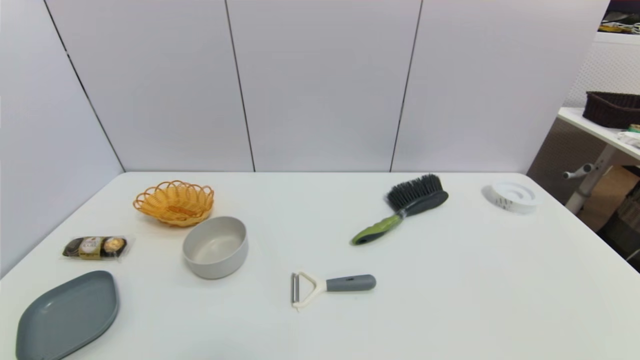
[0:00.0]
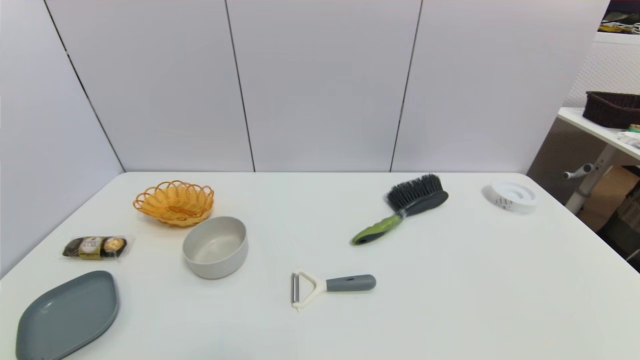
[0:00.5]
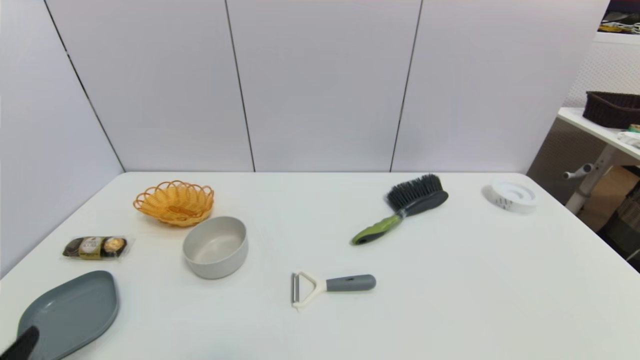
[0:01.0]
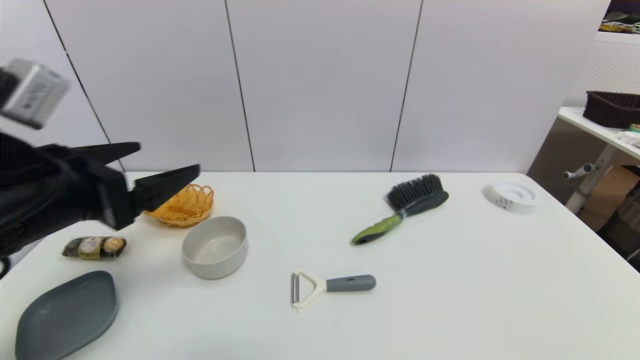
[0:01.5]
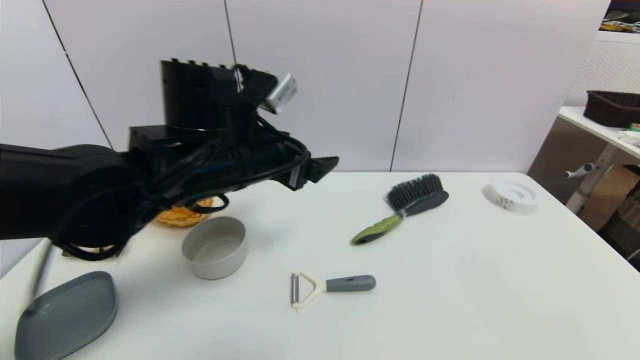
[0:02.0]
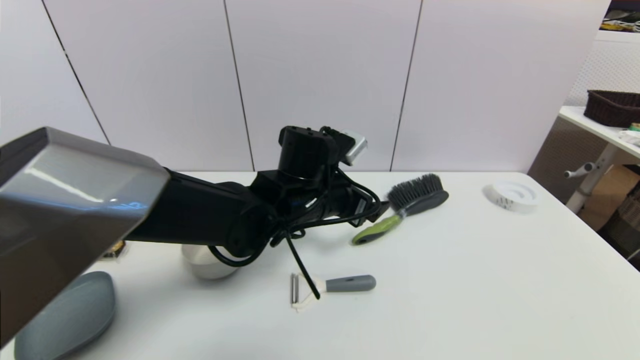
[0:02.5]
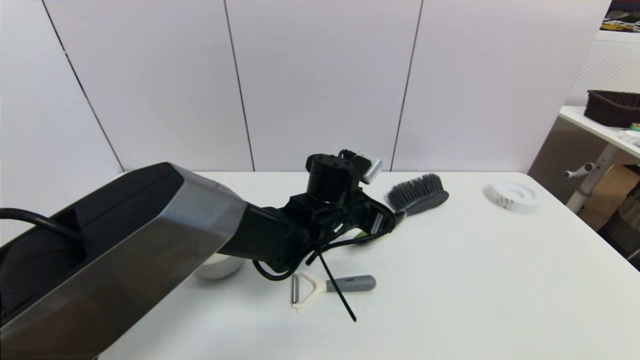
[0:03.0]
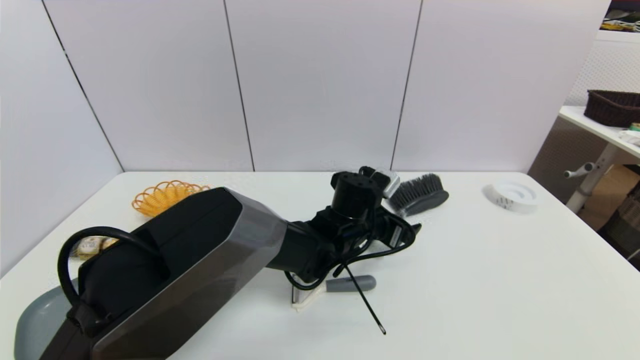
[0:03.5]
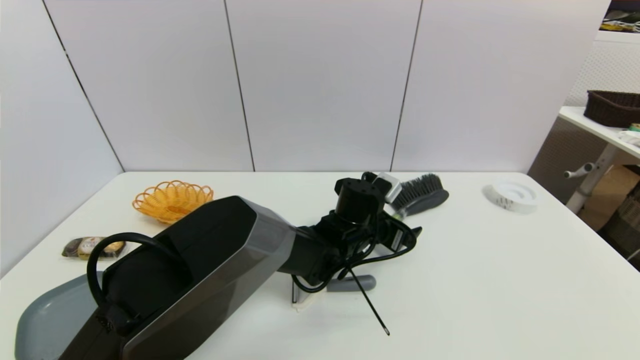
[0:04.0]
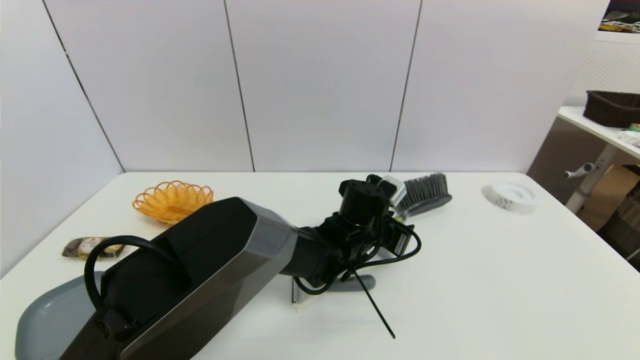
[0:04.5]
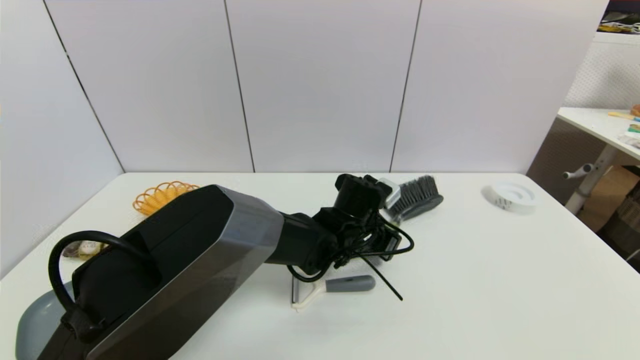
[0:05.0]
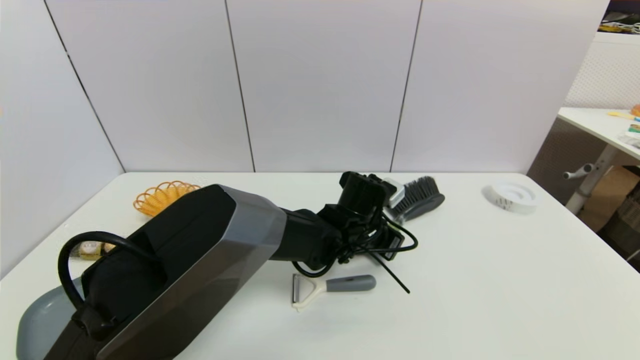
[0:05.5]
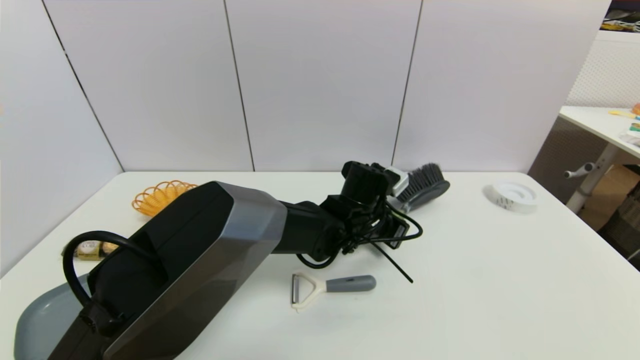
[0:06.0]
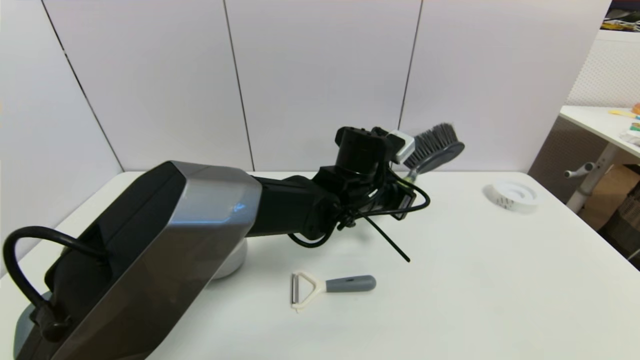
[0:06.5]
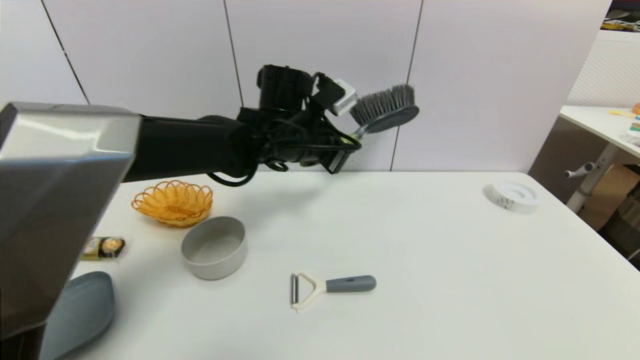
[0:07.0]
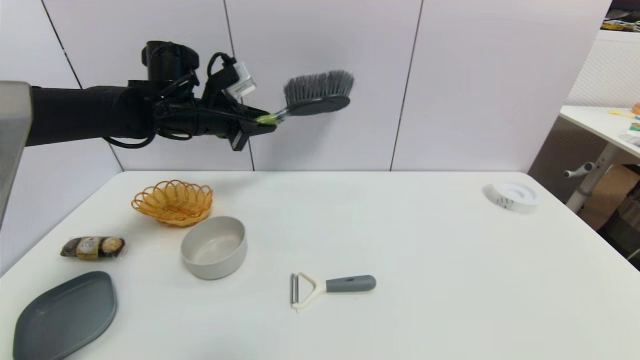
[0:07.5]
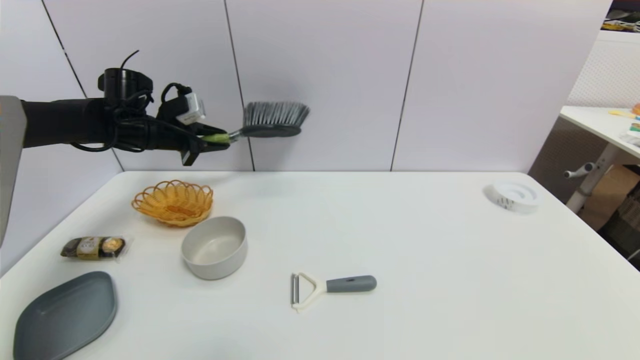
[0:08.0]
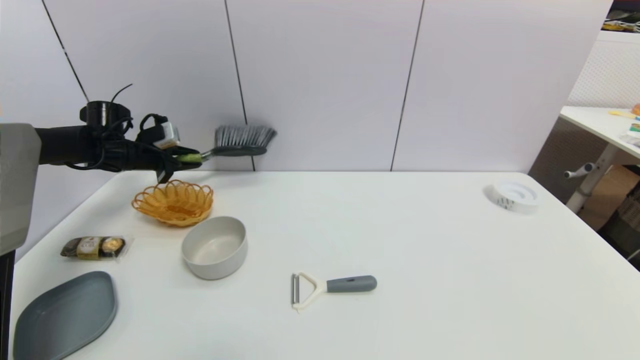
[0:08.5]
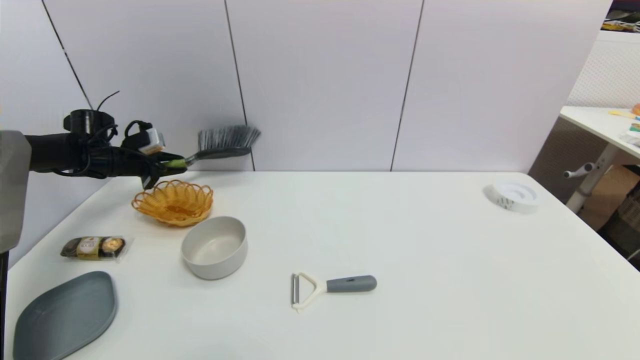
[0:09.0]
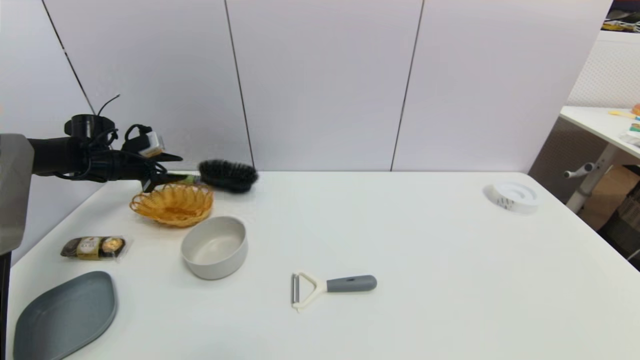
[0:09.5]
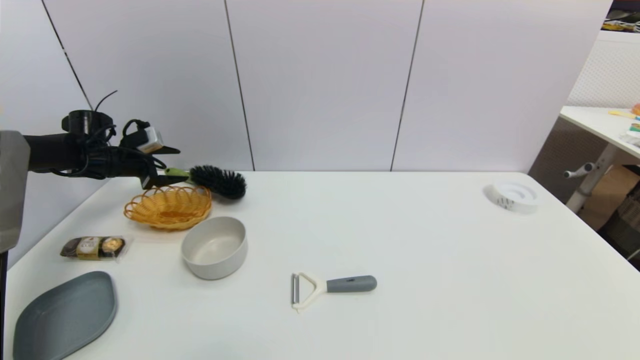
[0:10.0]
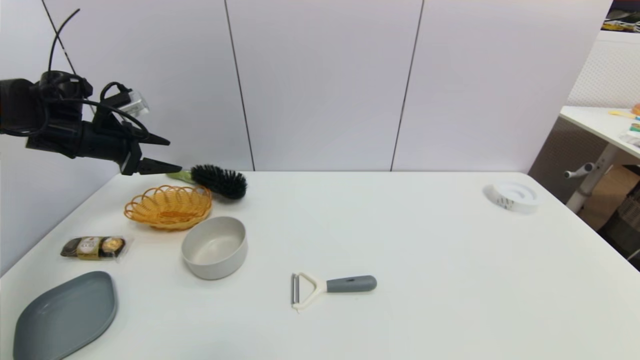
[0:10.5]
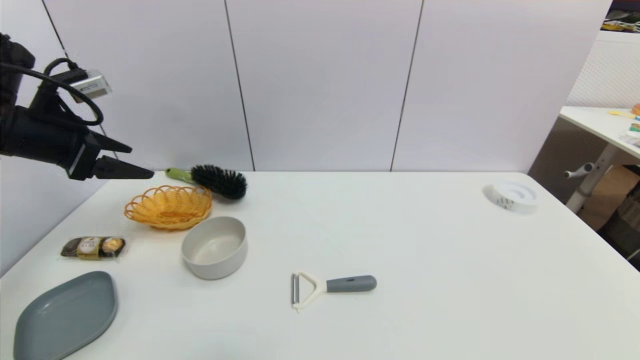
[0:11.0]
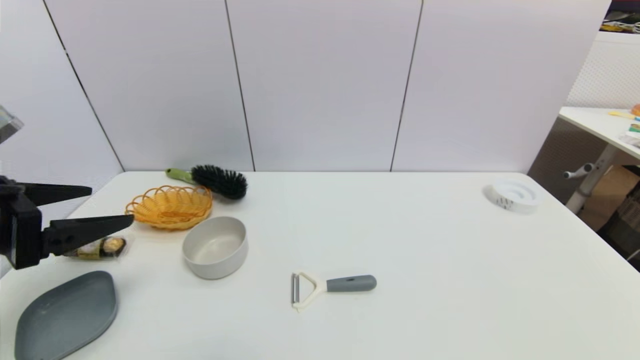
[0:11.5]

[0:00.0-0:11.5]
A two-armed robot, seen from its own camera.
Task of the whole recording: put the brush in the designated position.
Step, 0:01.0 to 0:05.5: Grasp the brush with left gripper.
Step, 0:06.0 to 0:09.5: Place the brush on the table with left gripper.
0:00.0 to 0:02.0: The left gripper is displaced forward, to the right and upward by approximately 40 cm.
0:02.0 to 0:04.0: The left gripper heads downward, to the right and forward, covering some 25 cm.
0:04.0 to 0:06.0: The left gripper closes up.
0:06.0 to 0:07.5: The left gripper travels to the left and upward by approximately 30 cm.
0:07.5 to 0:09.5: The left gripper shifts about 25 cm to the left and downward.
0:09.5 to 0:11.5: The left gripper is displaced backward by roughly 30 cm, and opens its fingers.

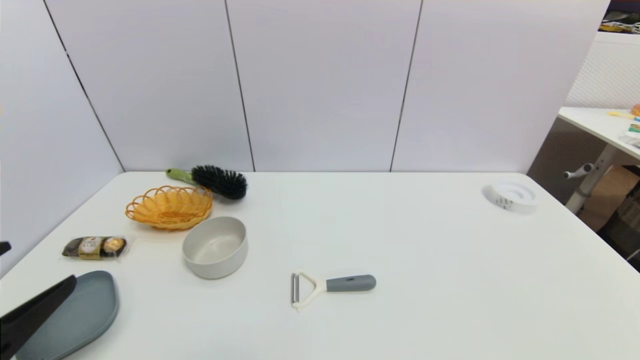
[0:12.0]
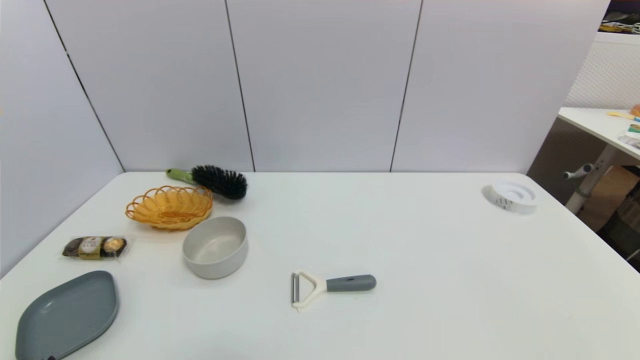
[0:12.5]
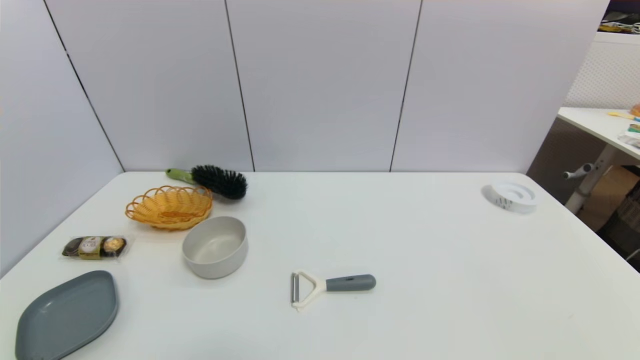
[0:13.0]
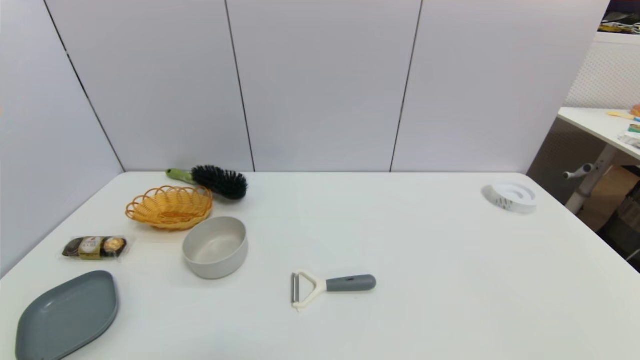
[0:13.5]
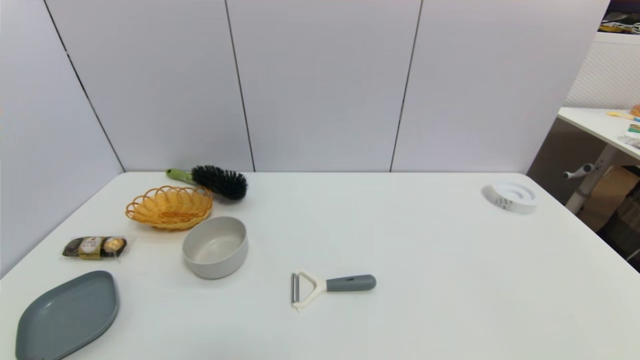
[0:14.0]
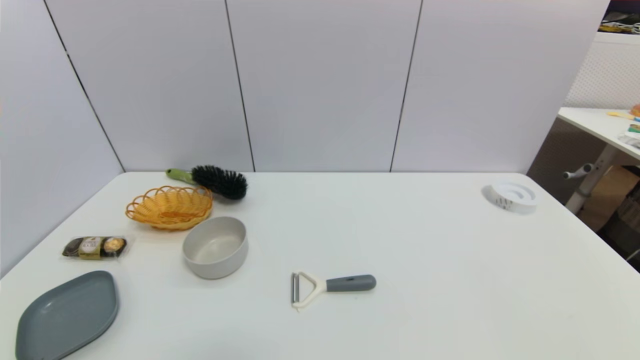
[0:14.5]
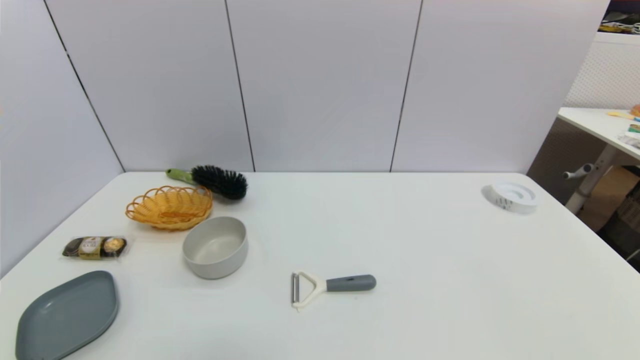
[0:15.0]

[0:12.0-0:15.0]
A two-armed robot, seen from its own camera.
Task of the whole recording: put the brush in the designated position.
0:12.0 to 0:13.5: The left gripper goes some 15 cm downward and backward.
0:13.5 to 0:15.0: Both grippers stay about where they are.

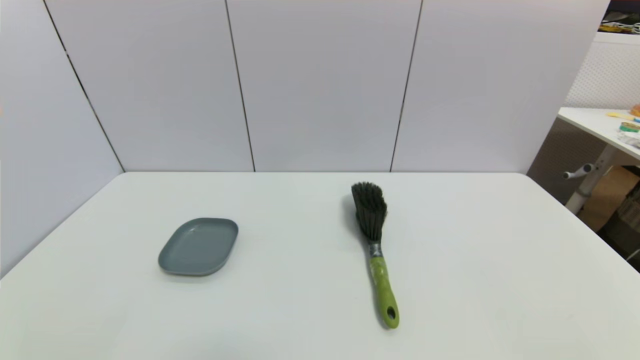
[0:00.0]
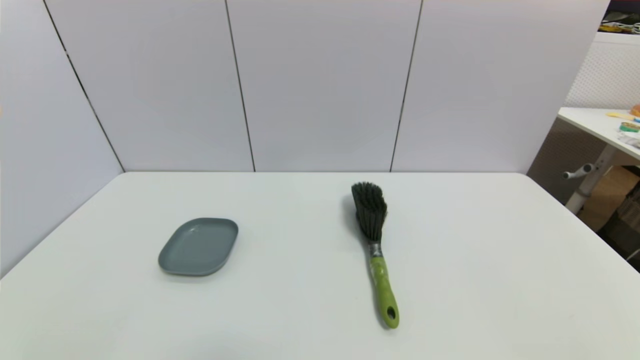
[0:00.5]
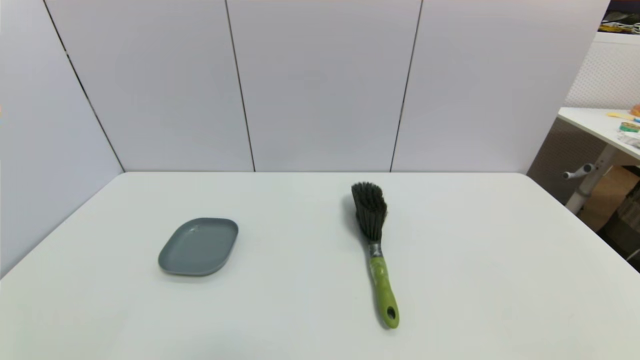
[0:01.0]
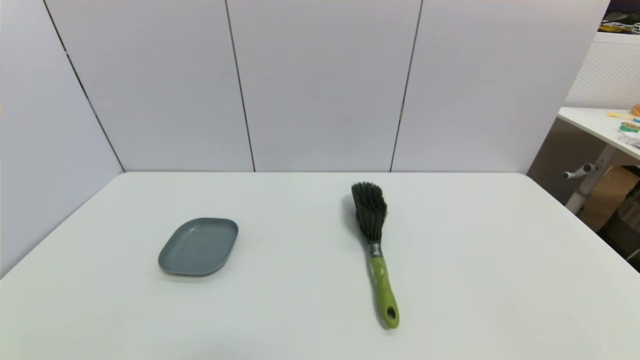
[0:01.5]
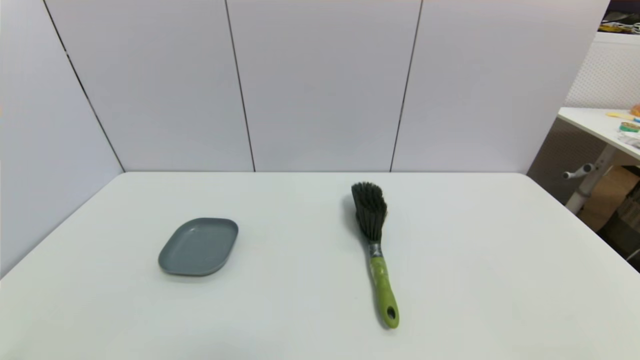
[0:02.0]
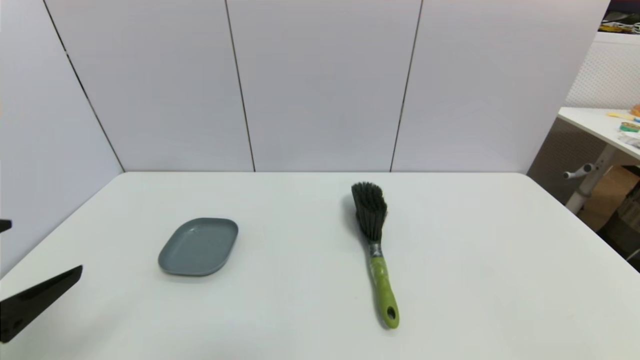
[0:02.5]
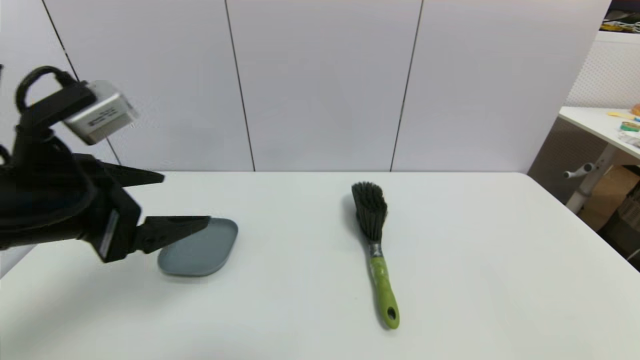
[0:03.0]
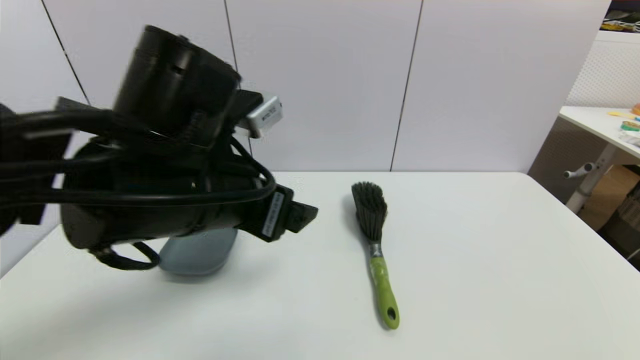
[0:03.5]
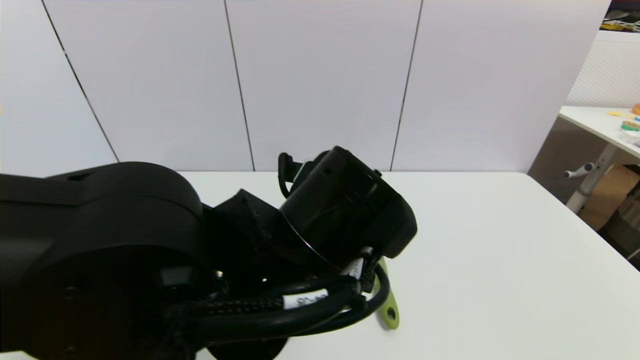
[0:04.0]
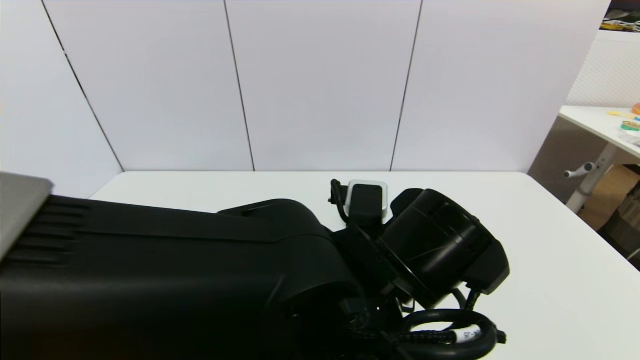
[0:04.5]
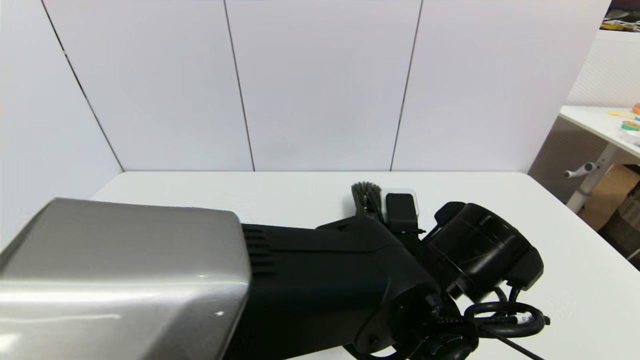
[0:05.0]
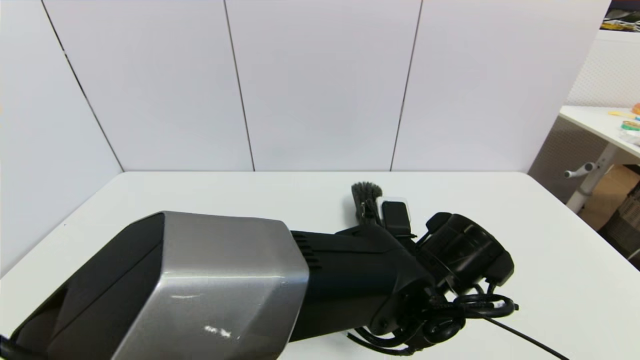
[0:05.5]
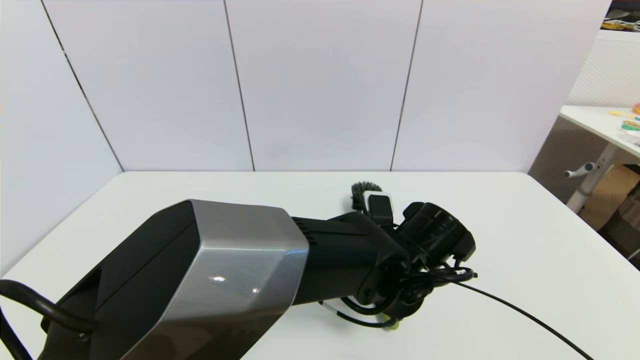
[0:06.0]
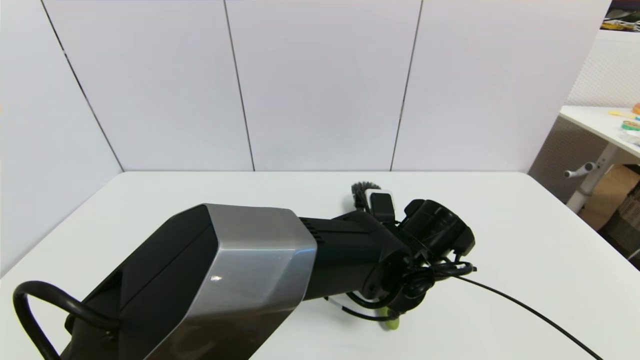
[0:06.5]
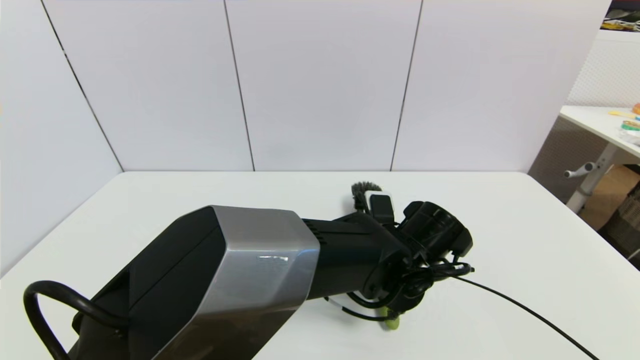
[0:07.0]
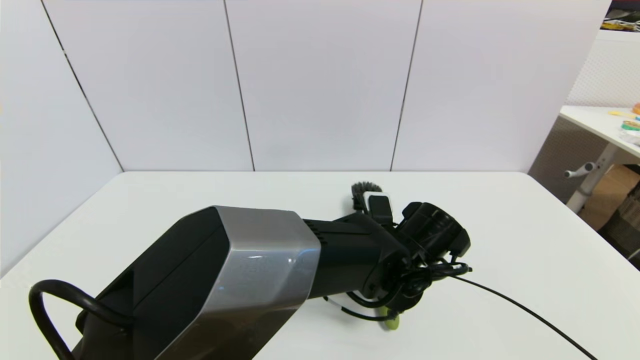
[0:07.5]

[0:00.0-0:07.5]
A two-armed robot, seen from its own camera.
Task of the whole recording: put the brush in the designated position.
0:02.0 to 0:04.0: The left gripper moves to the right and forward, approximately 35 cm.
0:04.0 to 0:05.5: The left gripper is displaced to the right, downward and forward by about 15 cm.
0:05.5 to 0:07.5: The left gripper ends up some 5 cm from where it was, and closes.
